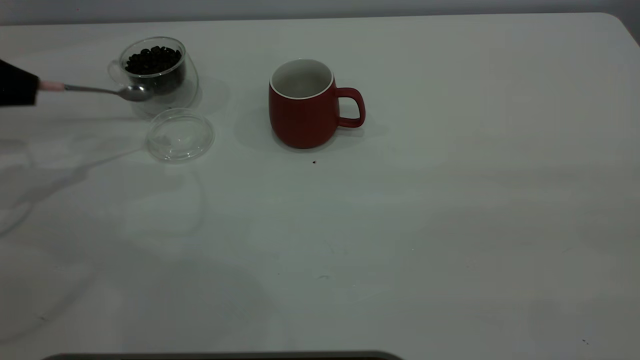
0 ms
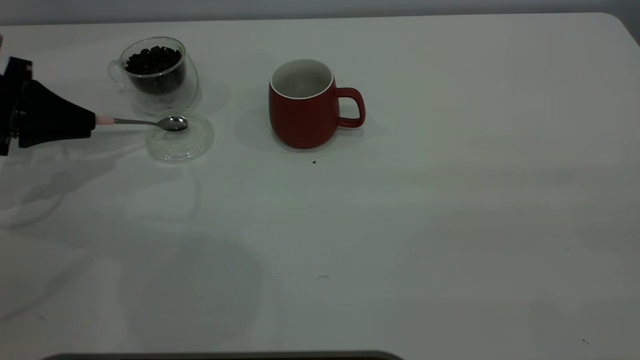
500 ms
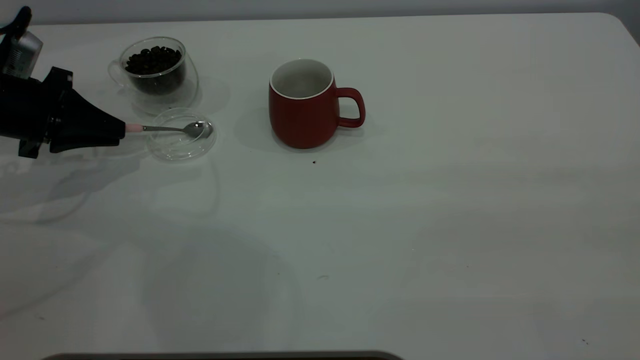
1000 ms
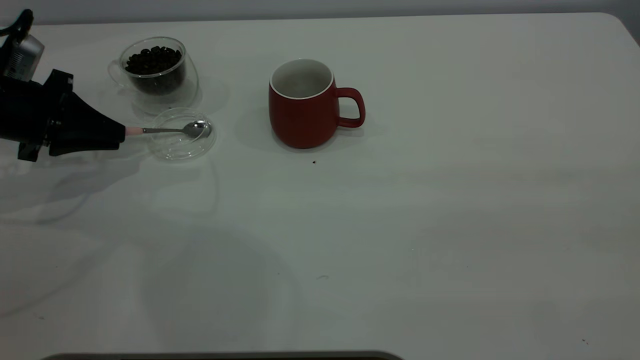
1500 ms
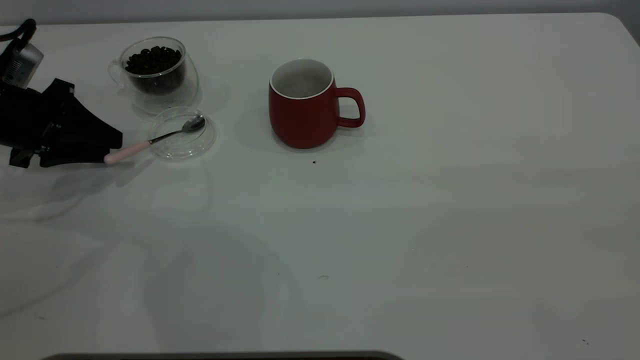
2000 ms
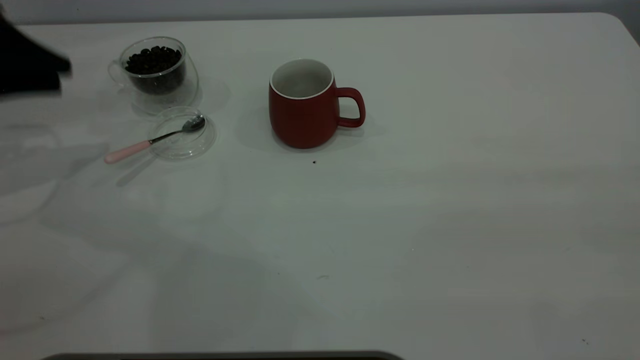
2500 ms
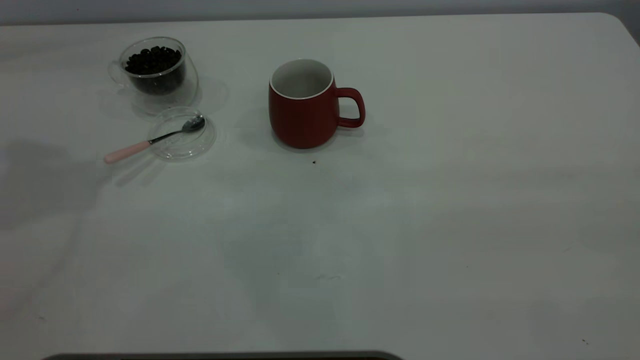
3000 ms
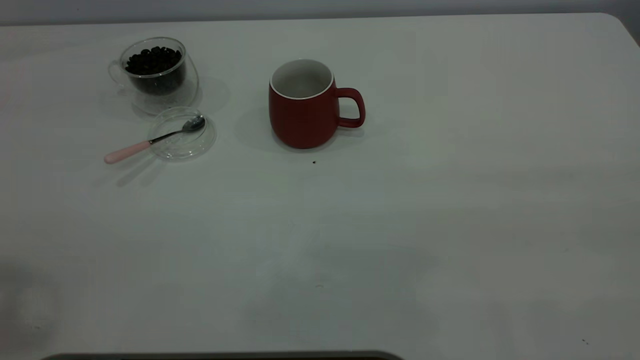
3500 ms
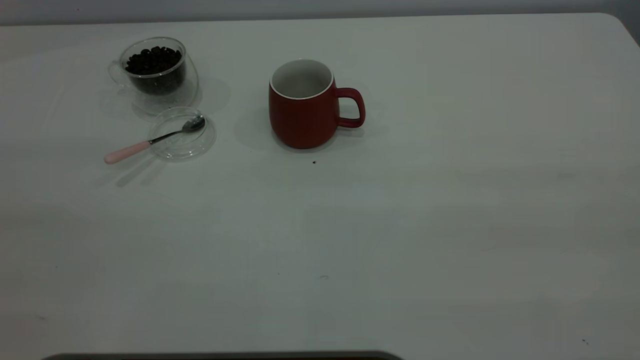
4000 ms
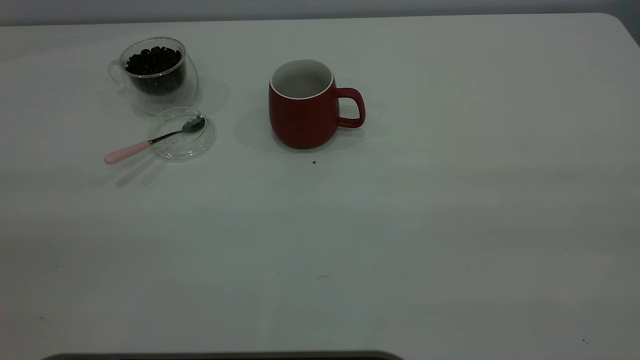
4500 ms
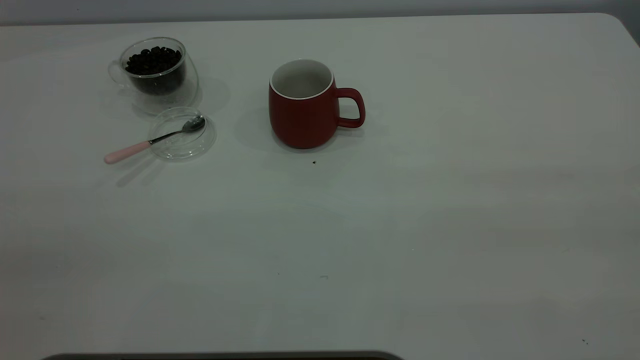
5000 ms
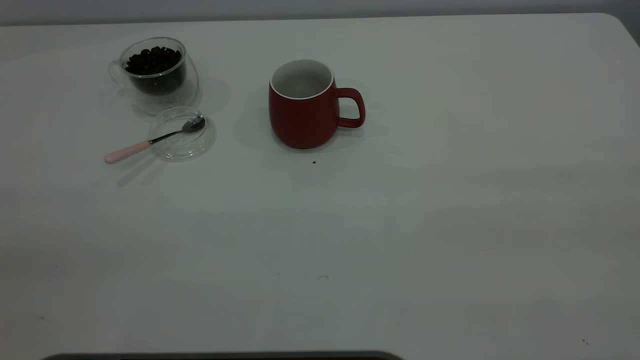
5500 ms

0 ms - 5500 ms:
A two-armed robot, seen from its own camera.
Task of the whole recording: the right gripper place the red cup in the center of the table, the left gripper take the pink spoon from the cup lid and scoop out the coffee beans from the coffee cup and put them into the red cup, the left gripper put the spoon back into the cup lid.
Step, 0 ms - 2500 ms: Place the spoon back in its original place.
0 ms - 2000 ms: The left gripper shifts about 5 cm downward, and opens up.
2000 ms - 3500 ms: The left gripper is displaced upward and backward by approximately 50 cm.

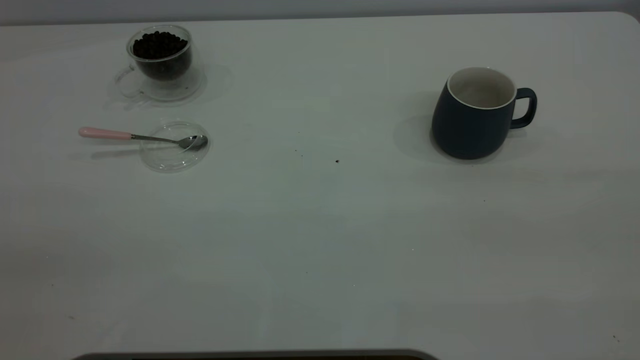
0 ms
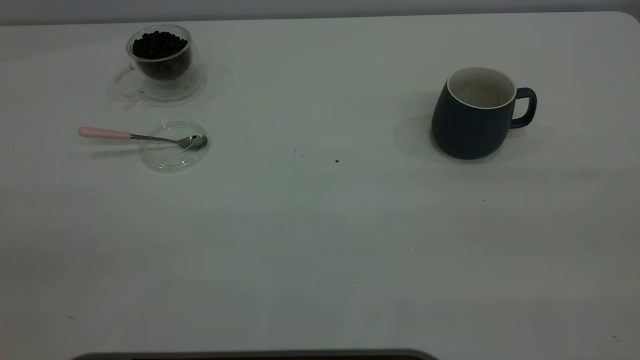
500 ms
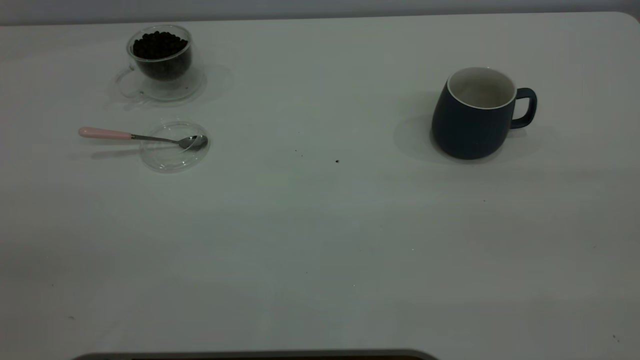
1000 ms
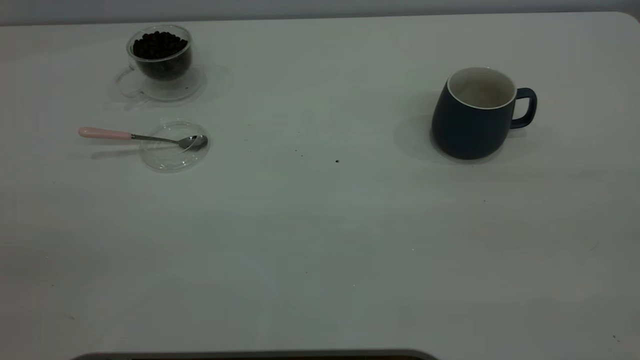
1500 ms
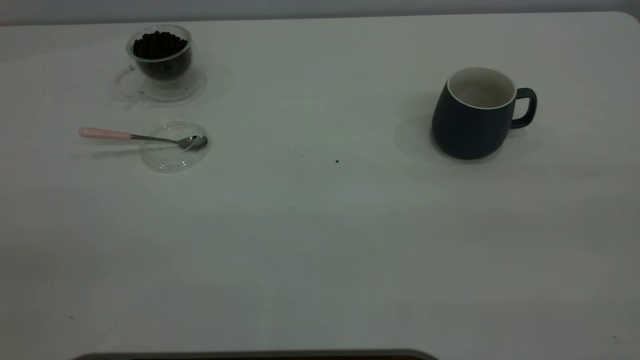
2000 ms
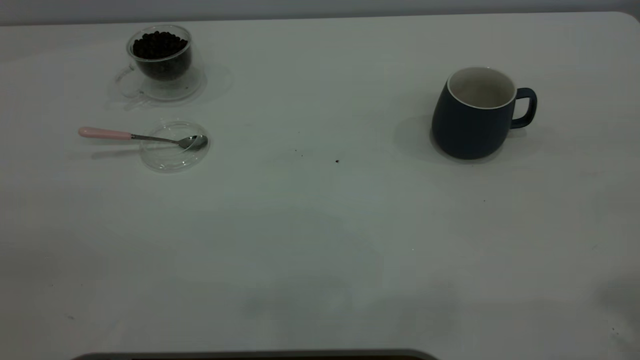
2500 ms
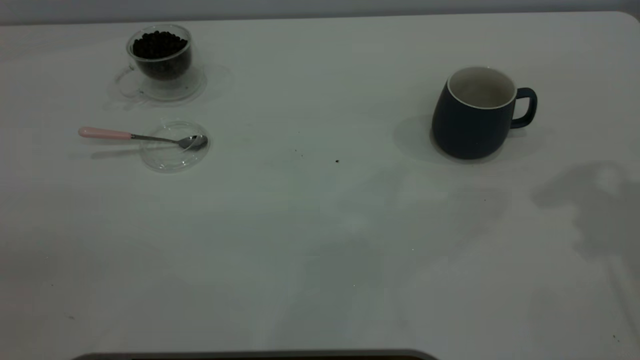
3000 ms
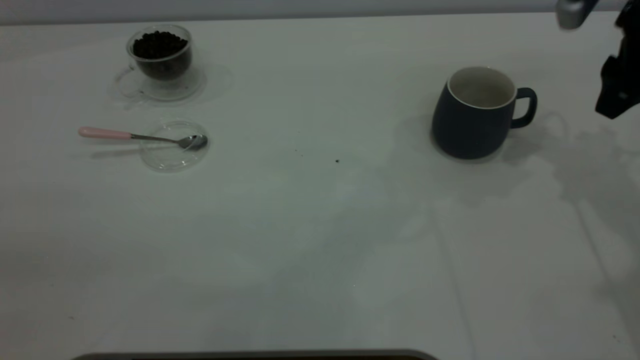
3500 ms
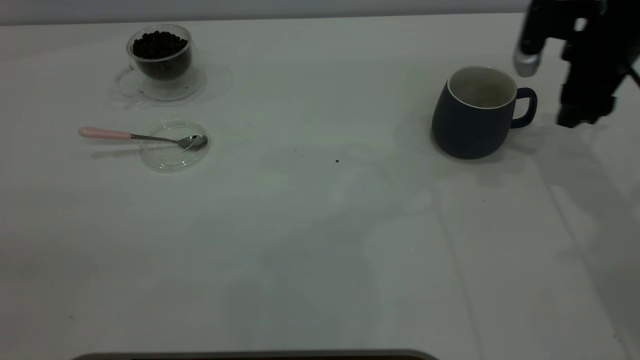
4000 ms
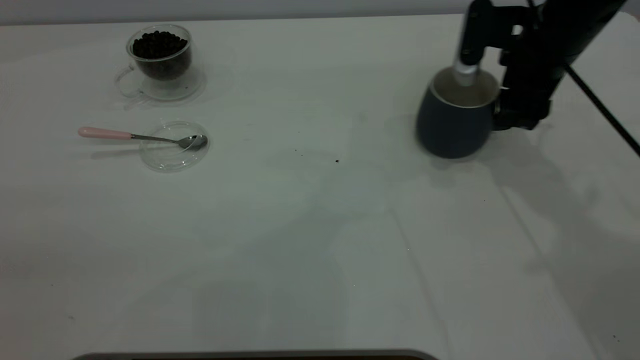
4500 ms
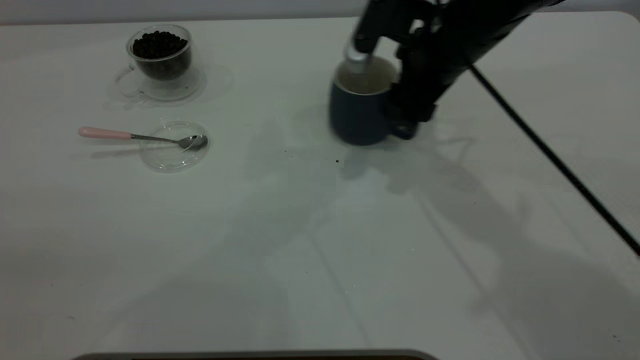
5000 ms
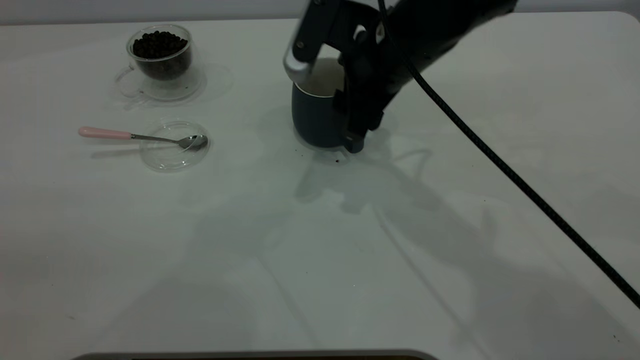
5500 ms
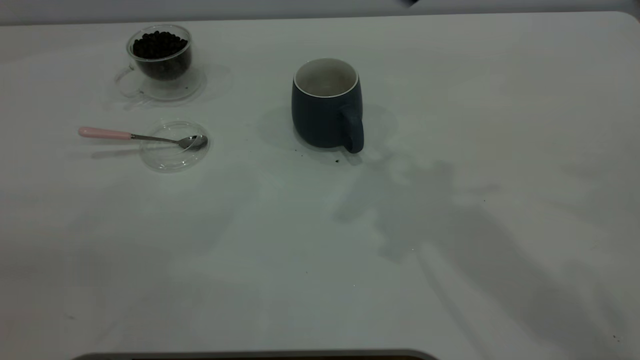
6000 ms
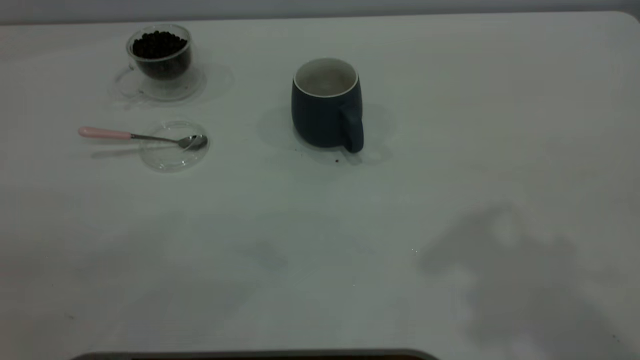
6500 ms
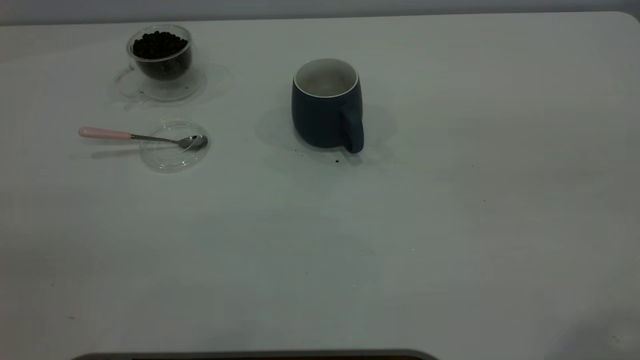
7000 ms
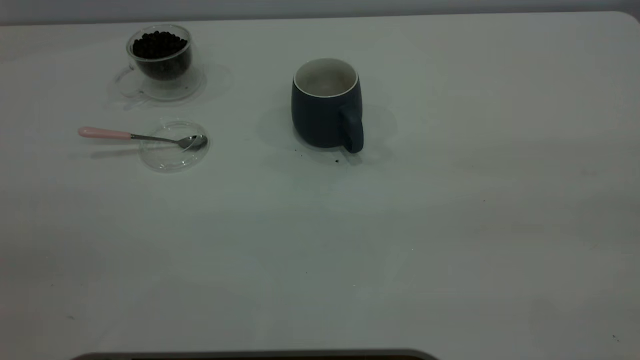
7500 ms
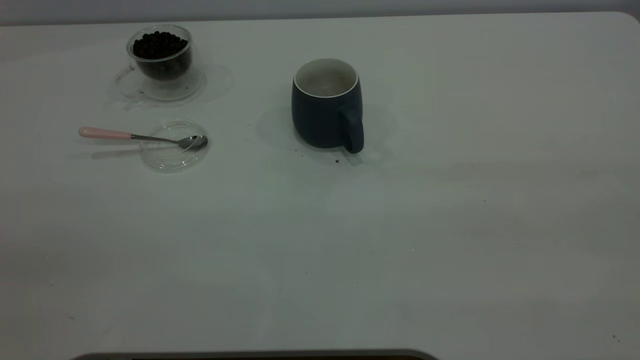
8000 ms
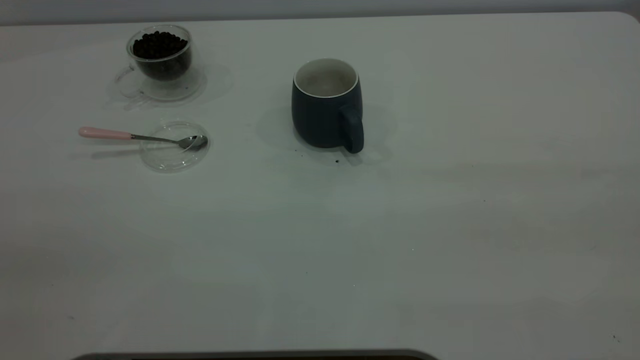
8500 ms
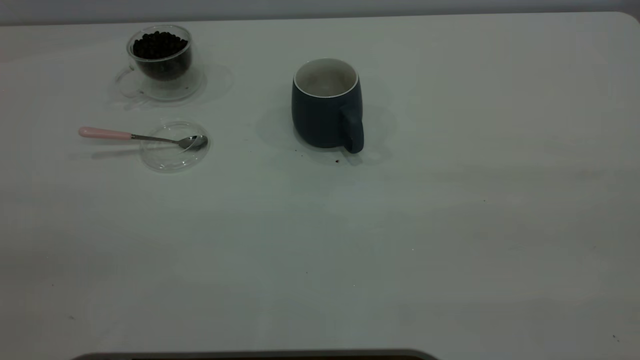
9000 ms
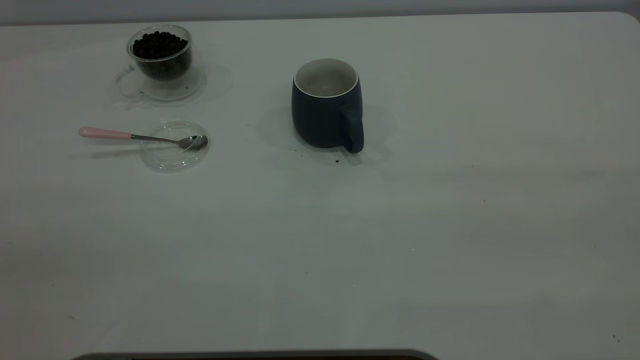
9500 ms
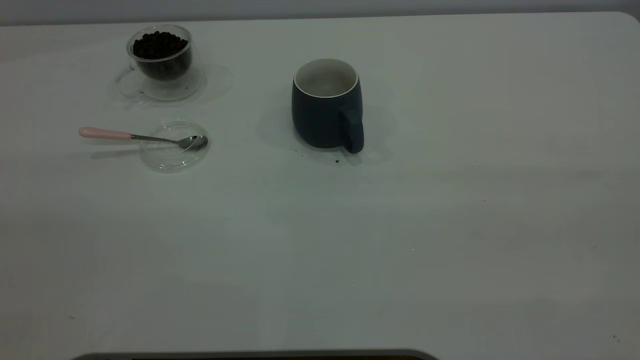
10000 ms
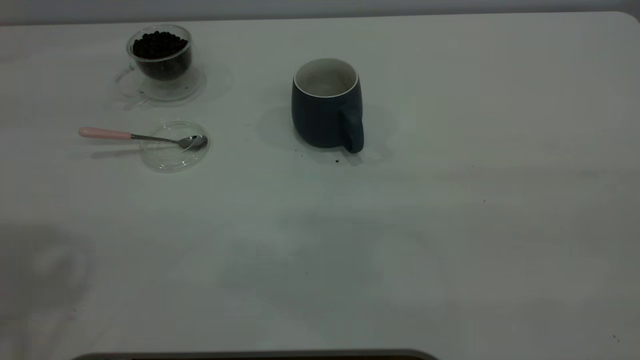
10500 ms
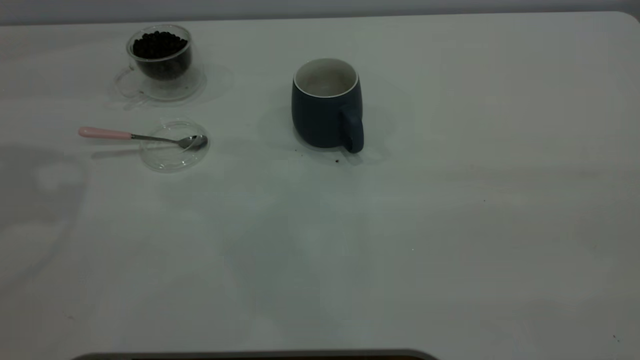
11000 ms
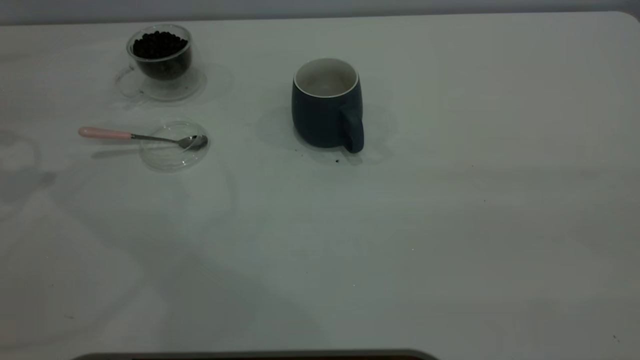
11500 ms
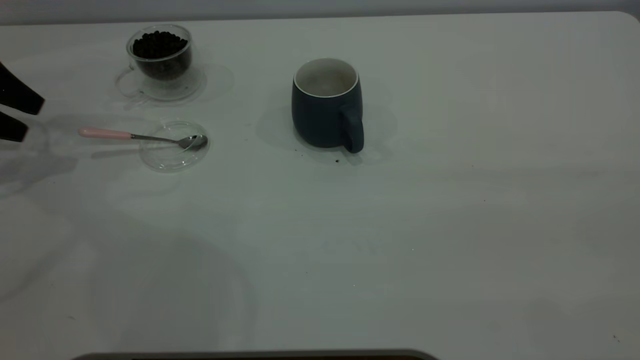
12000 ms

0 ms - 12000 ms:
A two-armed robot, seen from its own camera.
Task of the whole recording: the right gripper place the grey cup in the center of the table, the left gripper take the pink spoon from the cup lid and scoop out the coffee beans from the coffee cup and put them into the grey cup, the left gripper put the spoon back into the cup lid.
Step, 0 ms - 5500 ms: Move the cup to the center of view.
2000 ms - 4000 ms: The right gripper shifts approximately 50 cm forward and downward.
4000 ms - 6000 ms: The right gripper travels upward, to the left and backward by about 30 cm.
10000 ms - 12000 ms: The left gripper is displaced forward and downward by approximately 50 cm.

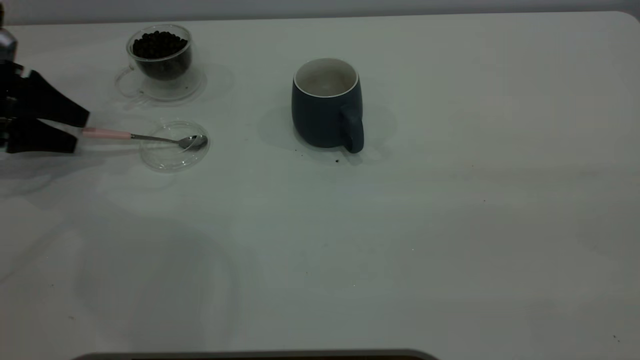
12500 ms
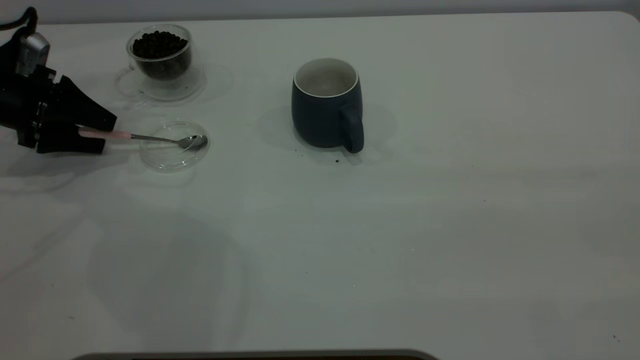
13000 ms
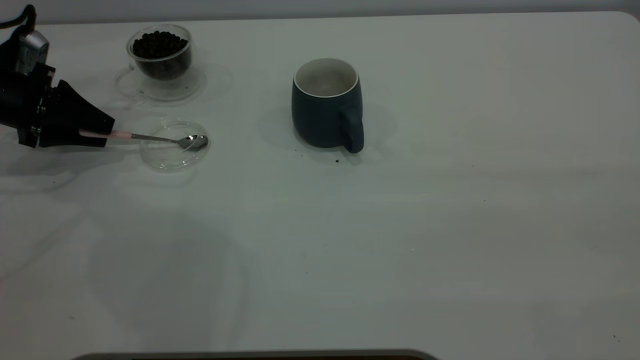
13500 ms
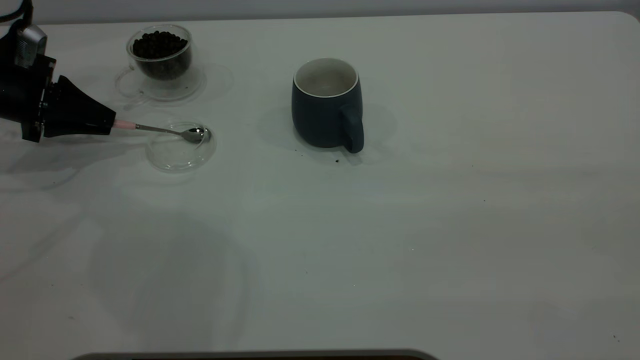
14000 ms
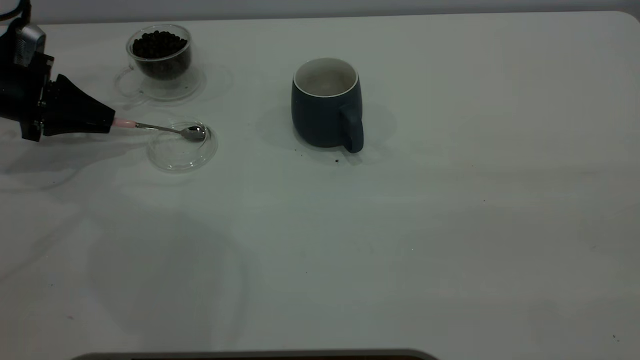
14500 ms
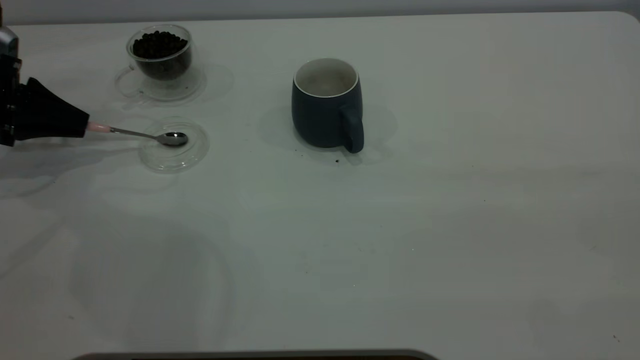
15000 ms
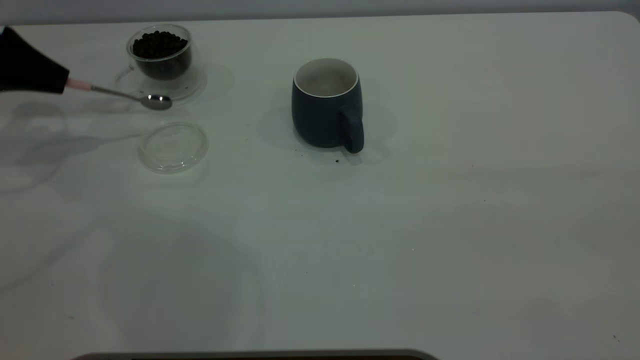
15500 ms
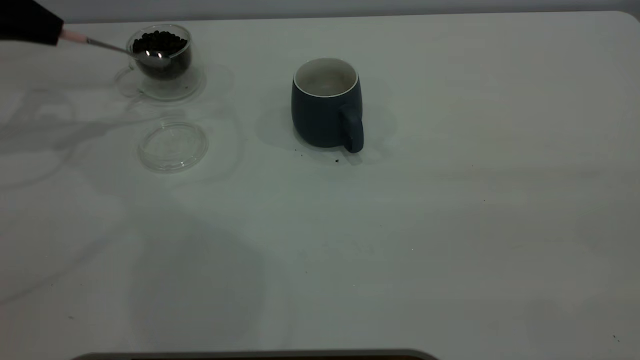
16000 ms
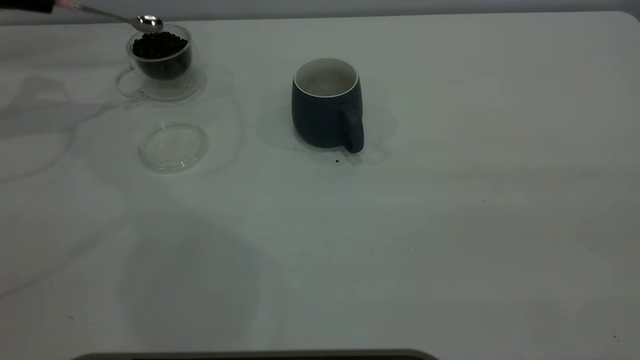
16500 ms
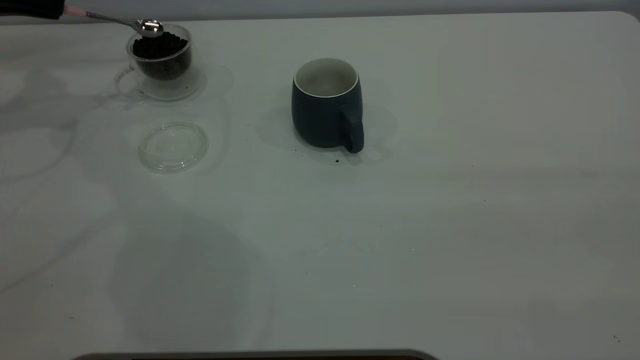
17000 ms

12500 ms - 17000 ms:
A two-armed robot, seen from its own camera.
Task of the whole recording: the right gripper place the grey cup in the center of the table, the left gripper take the pink spoon from the cup lid and scoop out the coffee beans from the coffee cup and put them into the grey cup, the left gripper put the spoon back into the cup lid.
Step, 12500 ms - 15000 ms: Pick up the spoon.
12500 ms - 14500 ms: The left gripper closes.
14500 ms - 17000 ms: The left gripper is displaced upward and forward by some 15 cm.
